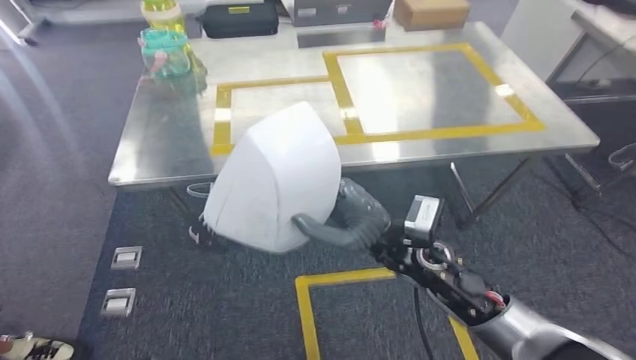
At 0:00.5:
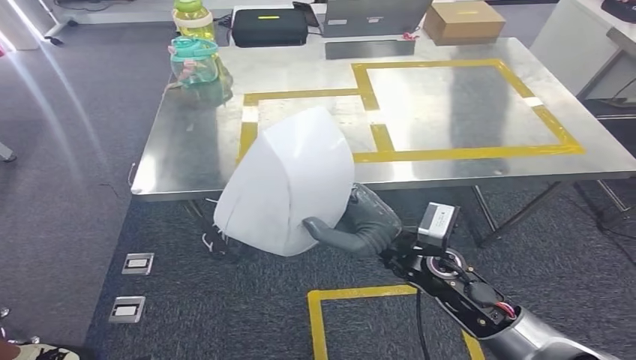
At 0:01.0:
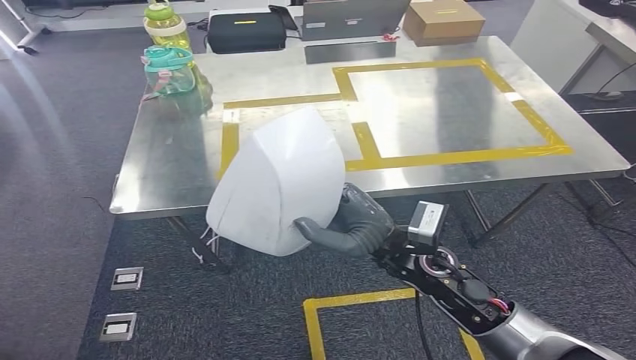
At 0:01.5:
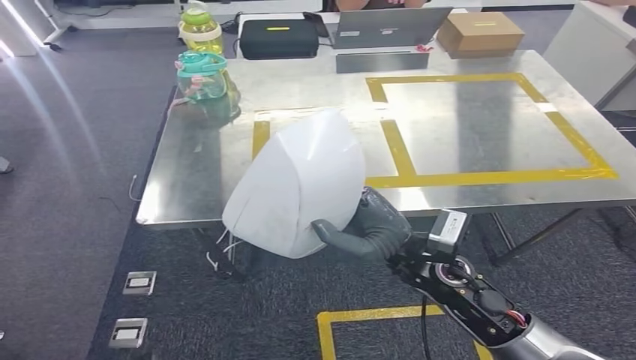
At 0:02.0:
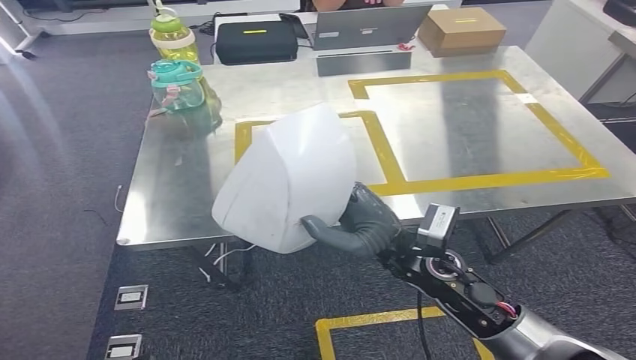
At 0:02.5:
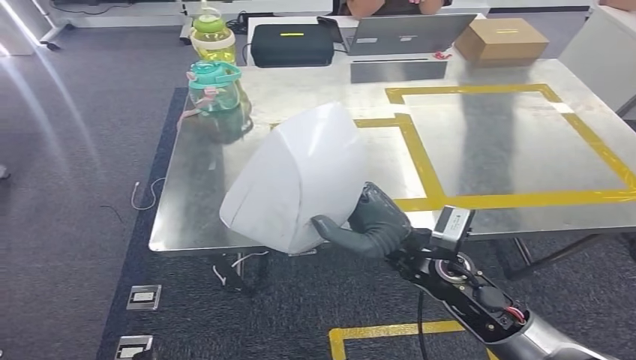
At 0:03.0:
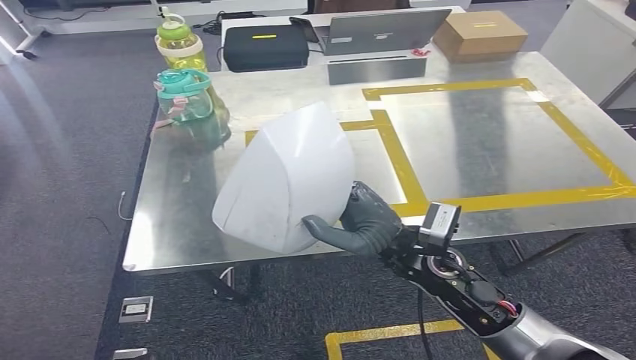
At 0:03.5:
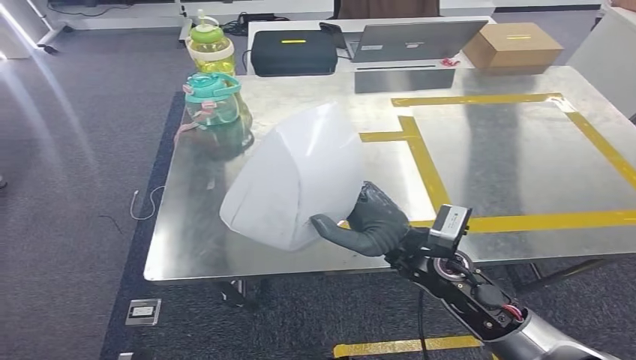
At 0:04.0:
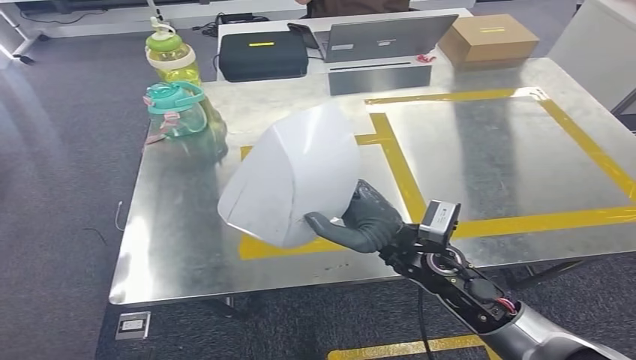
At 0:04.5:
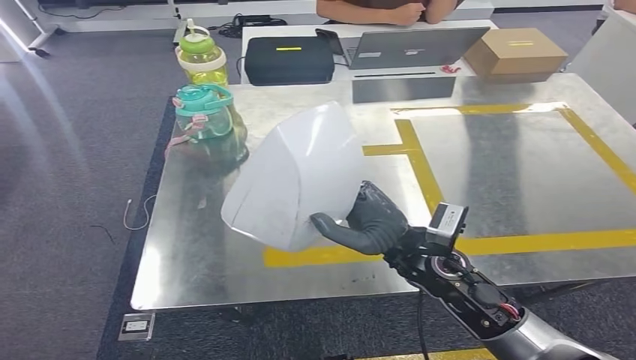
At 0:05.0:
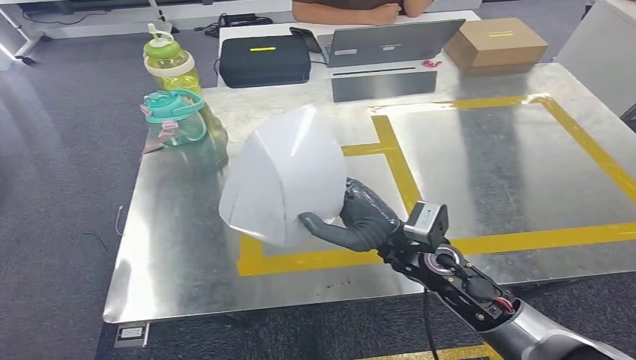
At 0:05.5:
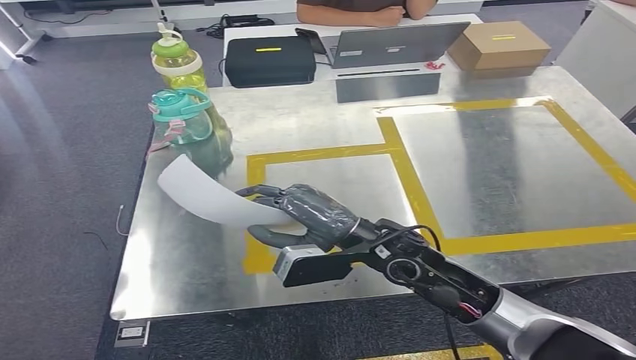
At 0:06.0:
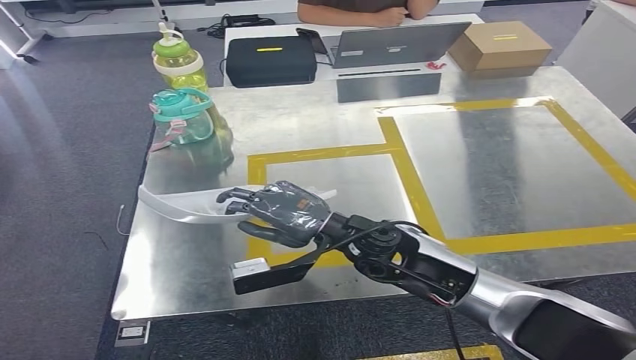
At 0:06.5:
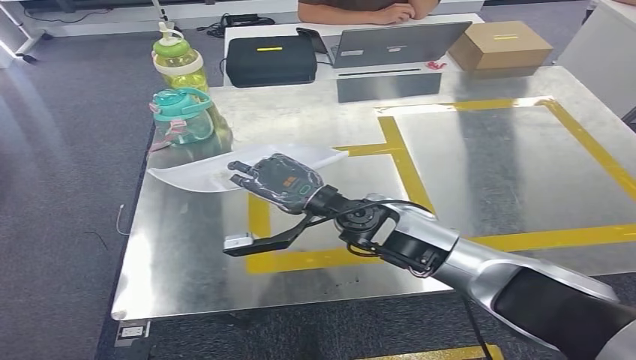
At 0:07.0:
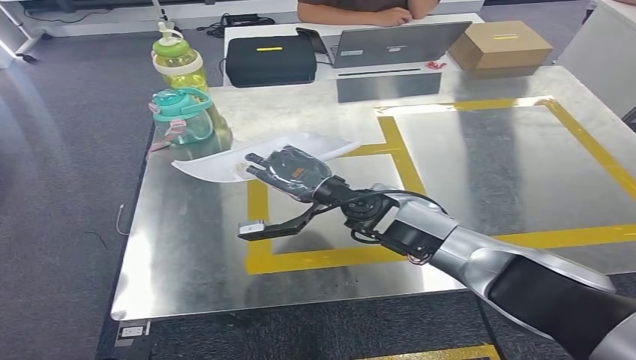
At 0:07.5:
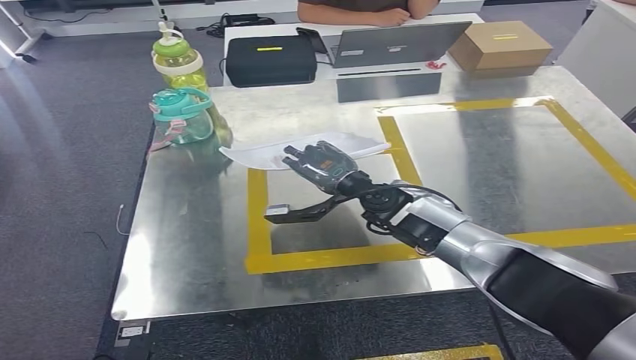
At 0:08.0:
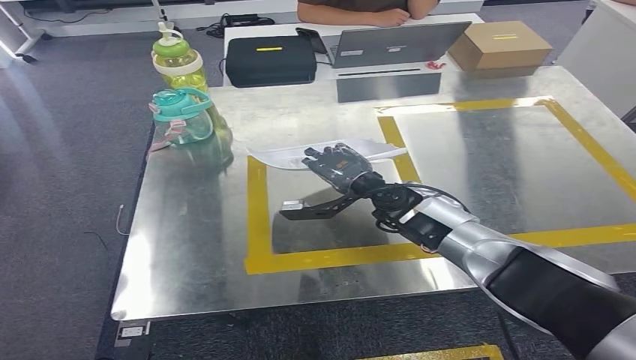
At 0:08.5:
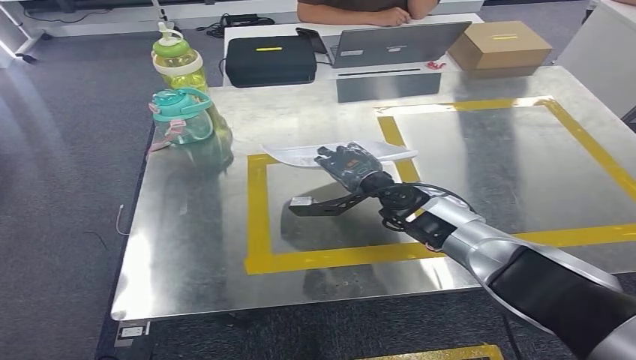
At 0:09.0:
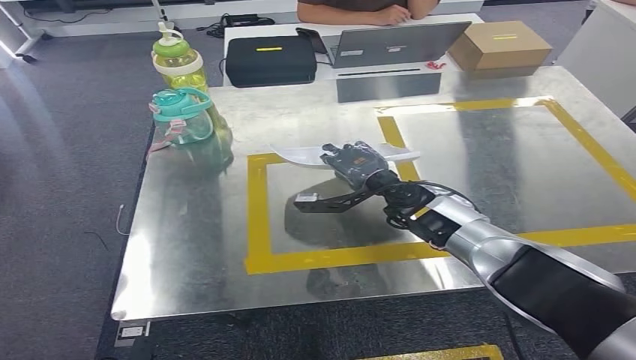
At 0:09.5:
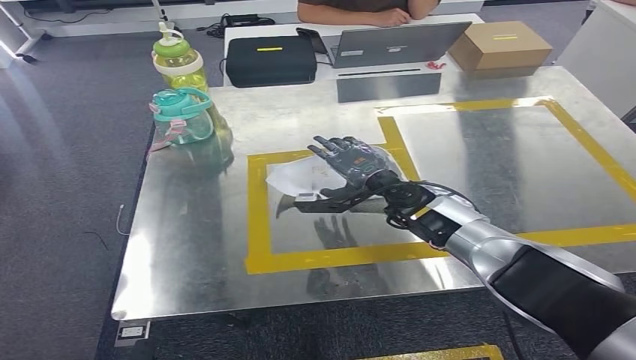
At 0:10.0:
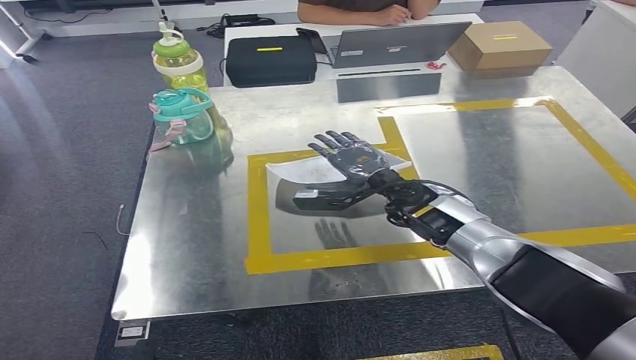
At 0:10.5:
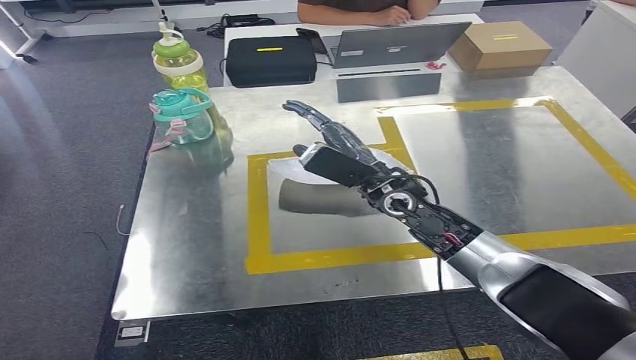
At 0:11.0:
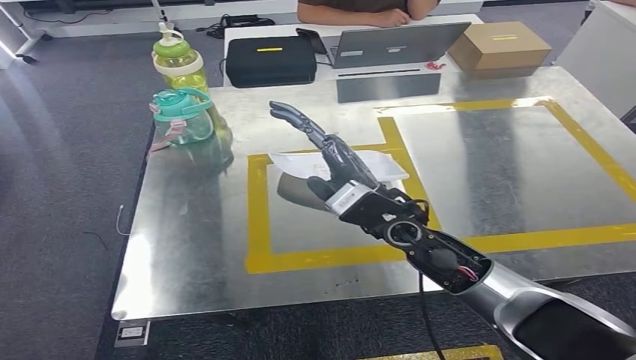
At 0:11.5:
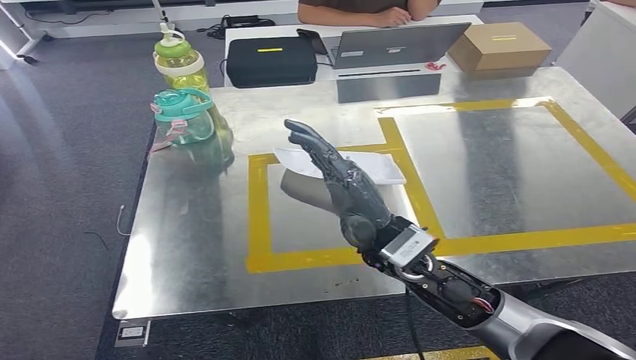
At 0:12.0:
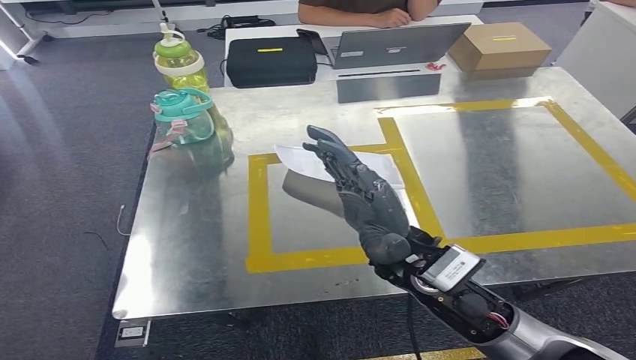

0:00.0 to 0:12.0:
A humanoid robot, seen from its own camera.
Step, 0:00.0 to 0:03.5: Move the small component to the workbench.
0:06.0 to 0:08.0: The right hand moves forward and to the right, some 10 cm.
0:08.0 to 0:10.0: The hands move only a little.
0:10.0 to 0:12.0: The right hand heads backward and upward, covering some 15 cm.

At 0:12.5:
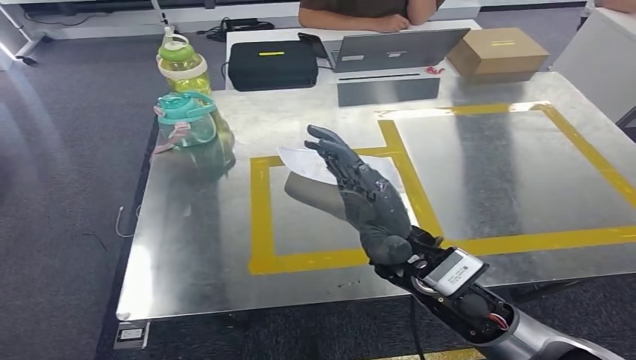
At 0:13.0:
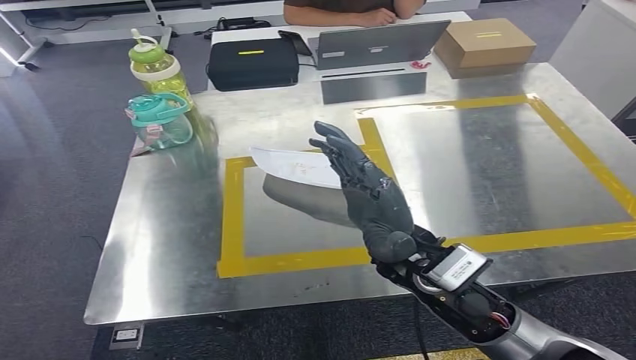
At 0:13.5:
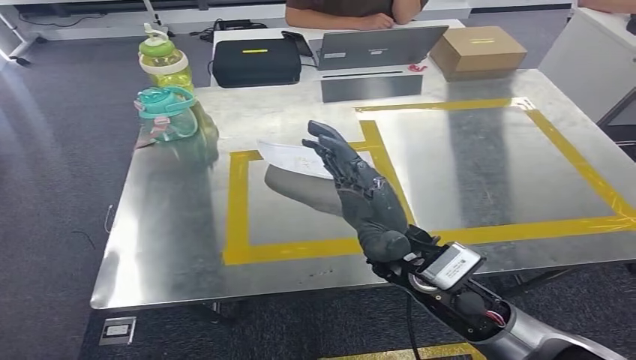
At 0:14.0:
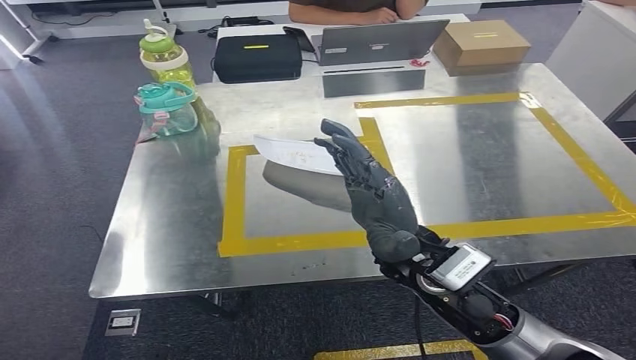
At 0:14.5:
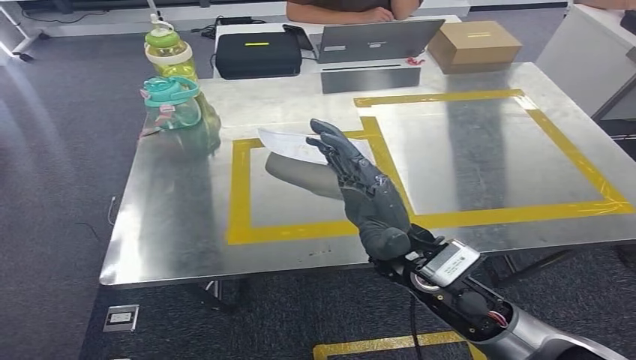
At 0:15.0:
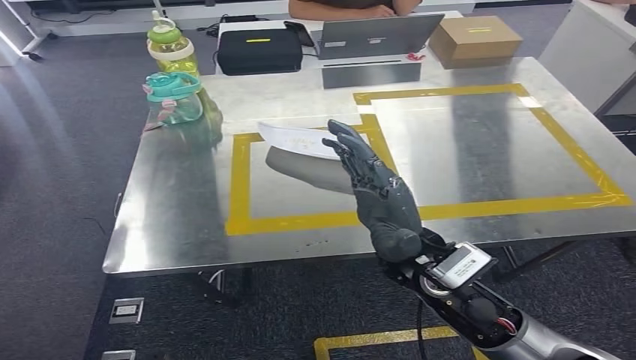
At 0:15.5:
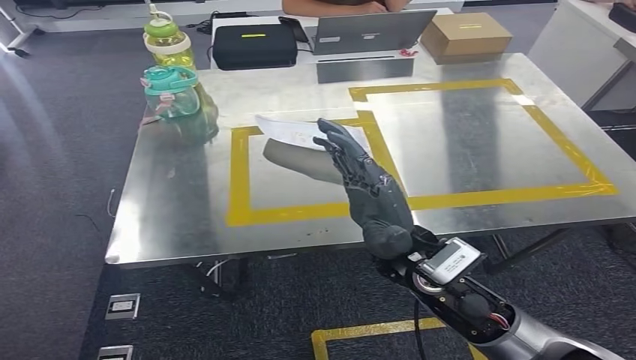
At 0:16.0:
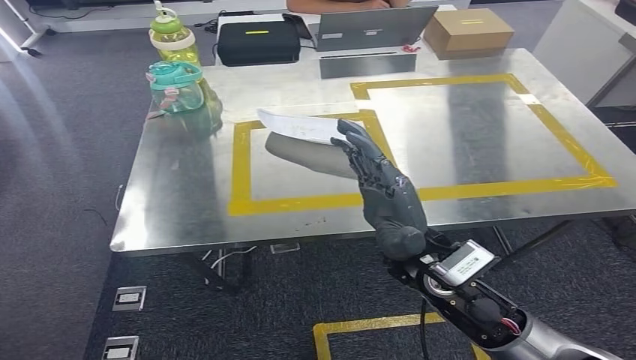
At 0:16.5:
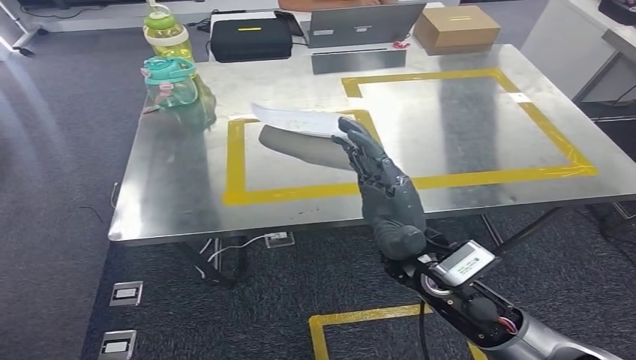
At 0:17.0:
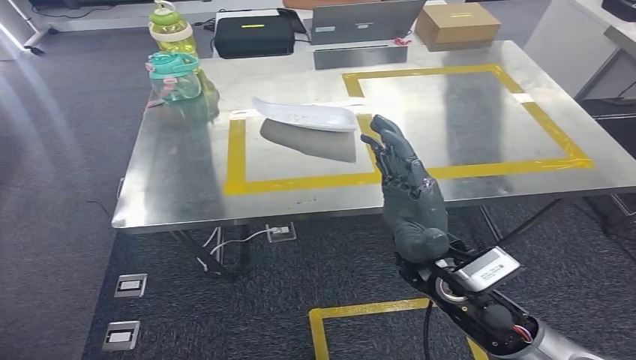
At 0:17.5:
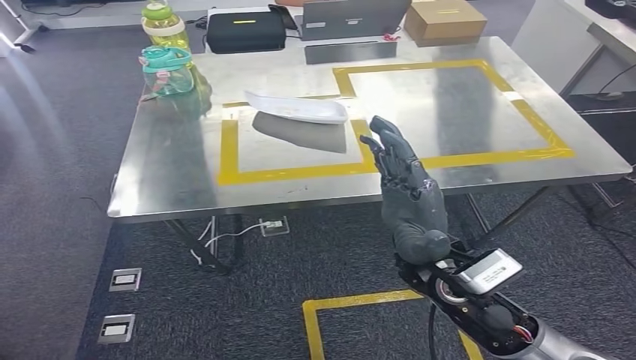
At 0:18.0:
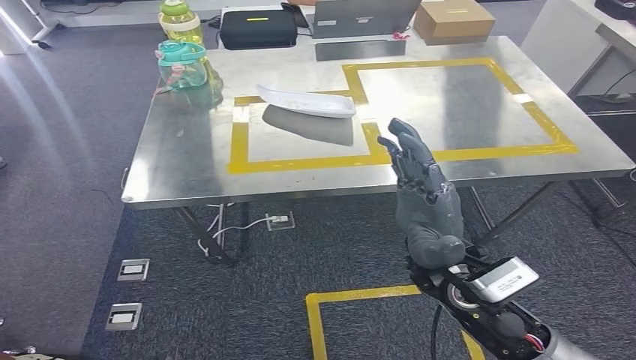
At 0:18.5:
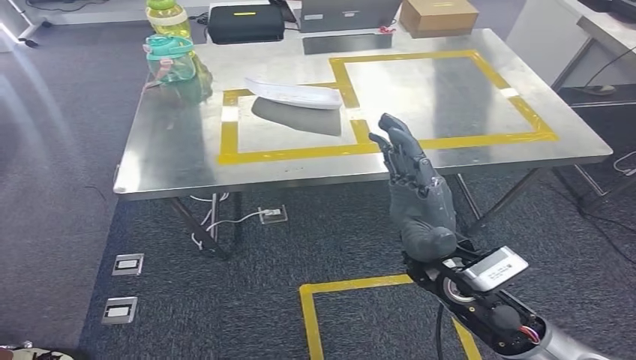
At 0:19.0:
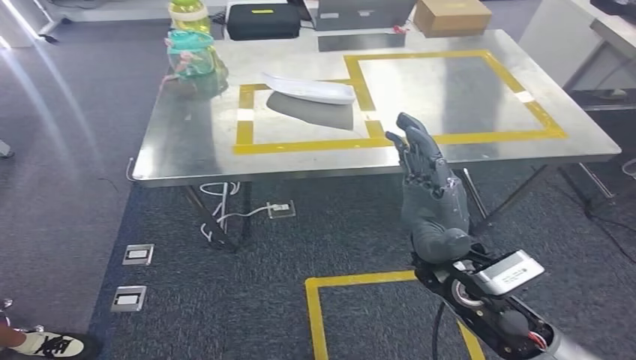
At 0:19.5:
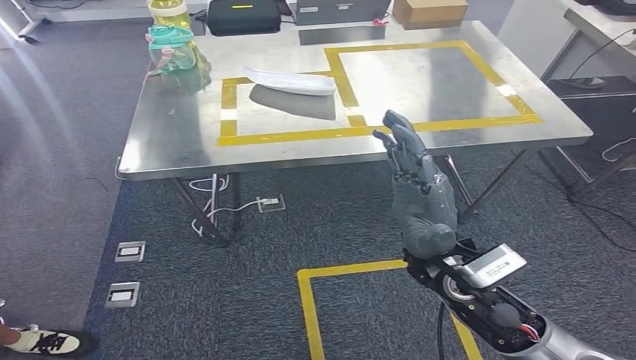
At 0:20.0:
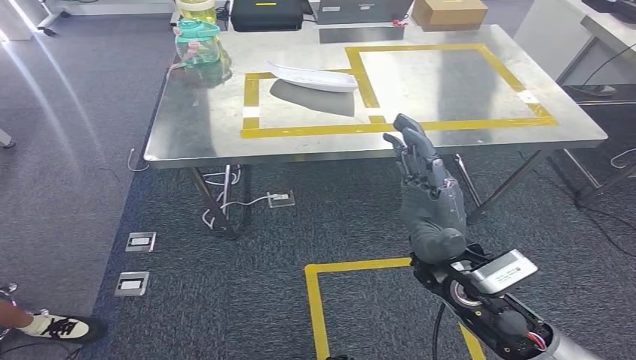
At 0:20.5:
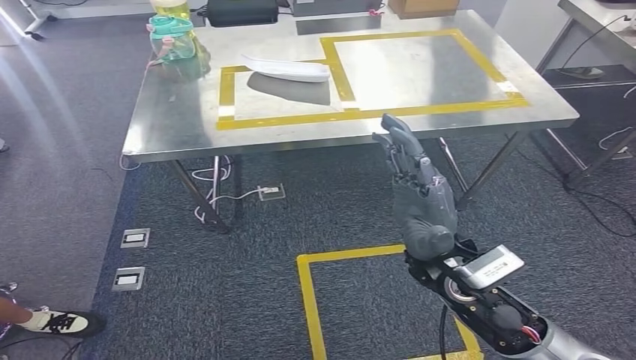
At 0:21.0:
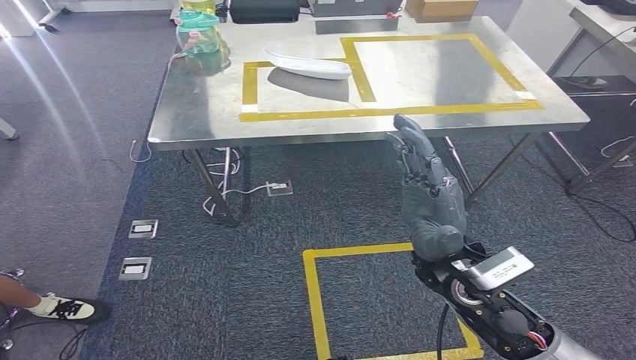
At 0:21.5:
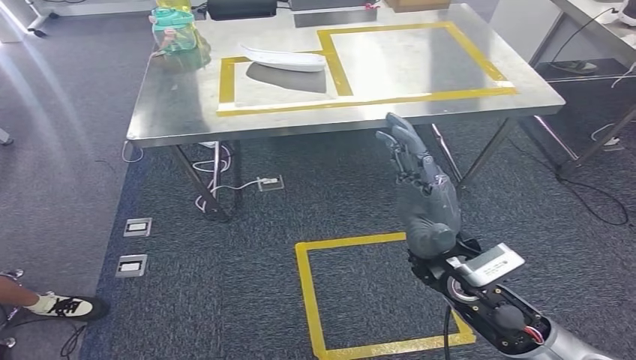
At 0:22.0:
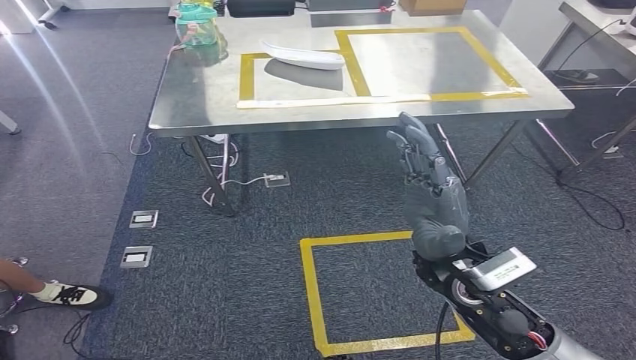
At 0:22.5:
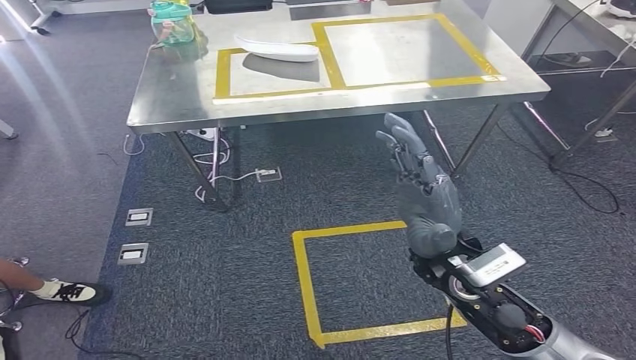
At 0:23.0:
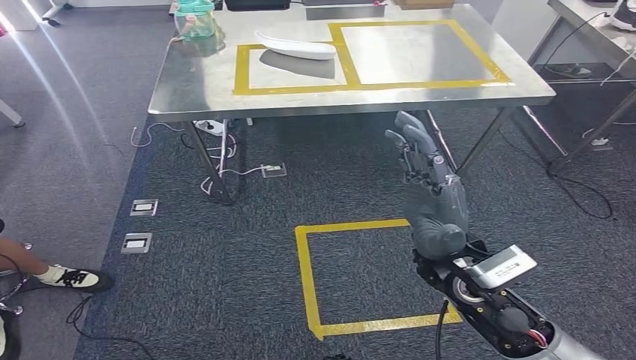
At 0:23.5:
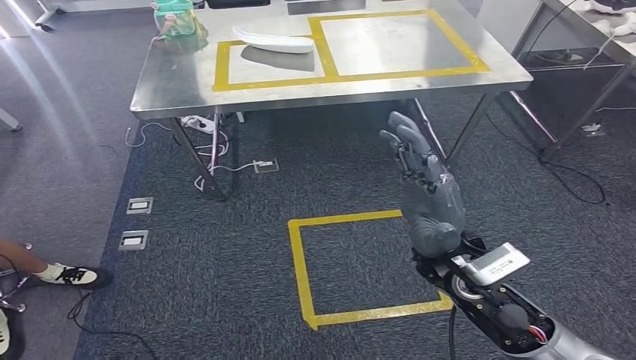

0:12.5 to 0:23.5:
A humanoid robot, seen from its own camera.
Step, 0:12.5 to 0:17.0: Insert the small component into the corresponding slot on the workbench.
